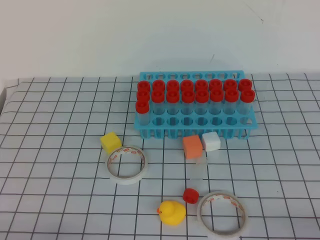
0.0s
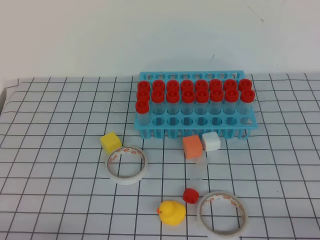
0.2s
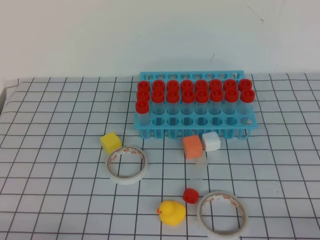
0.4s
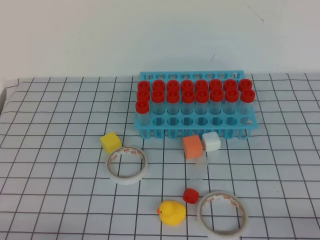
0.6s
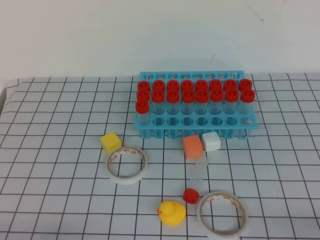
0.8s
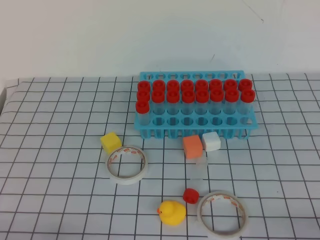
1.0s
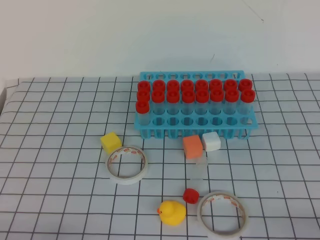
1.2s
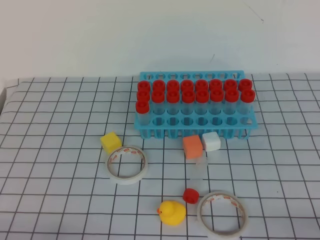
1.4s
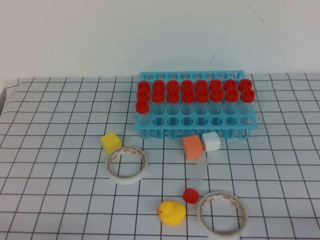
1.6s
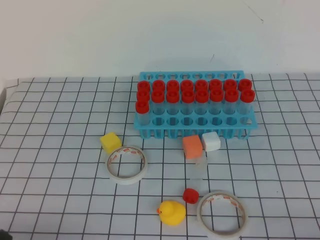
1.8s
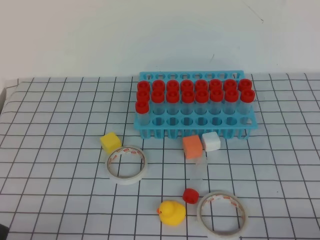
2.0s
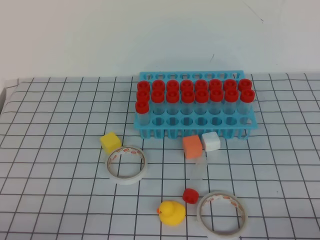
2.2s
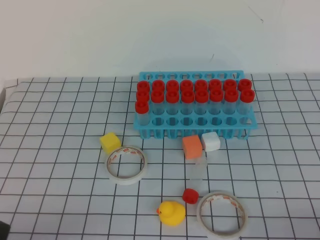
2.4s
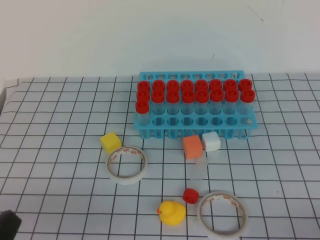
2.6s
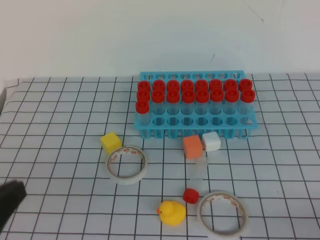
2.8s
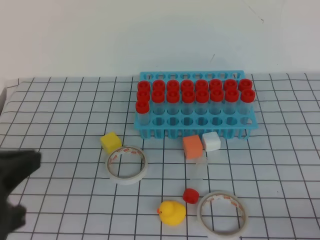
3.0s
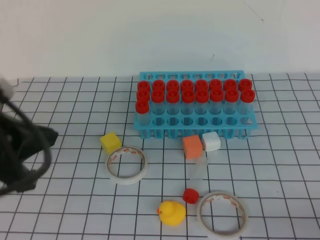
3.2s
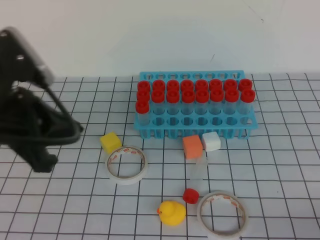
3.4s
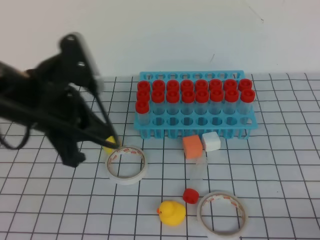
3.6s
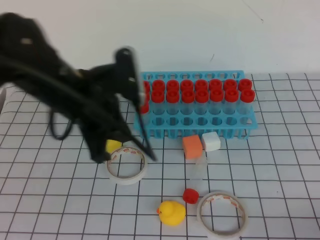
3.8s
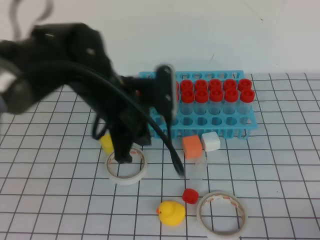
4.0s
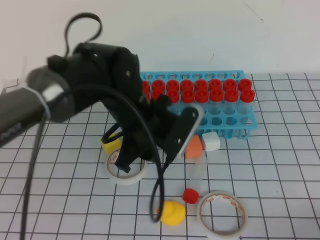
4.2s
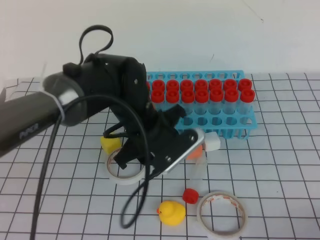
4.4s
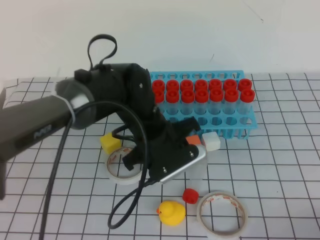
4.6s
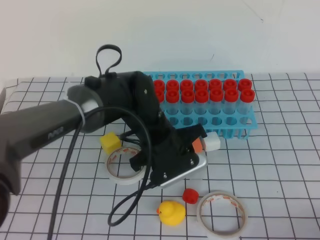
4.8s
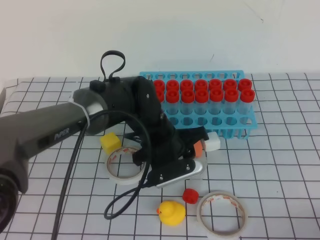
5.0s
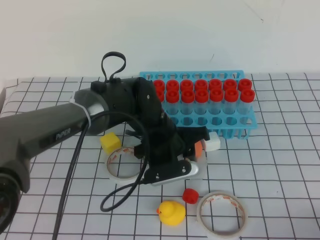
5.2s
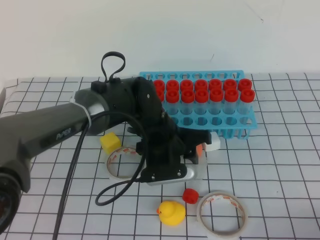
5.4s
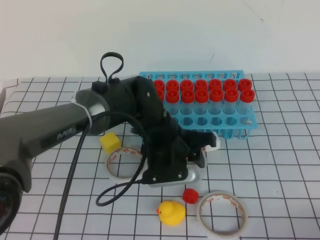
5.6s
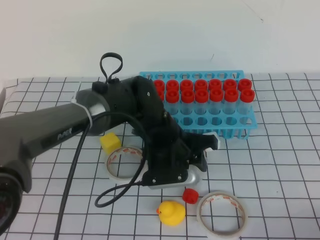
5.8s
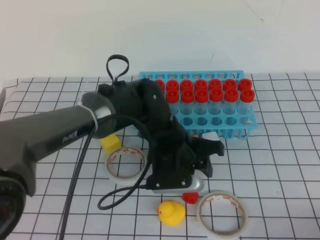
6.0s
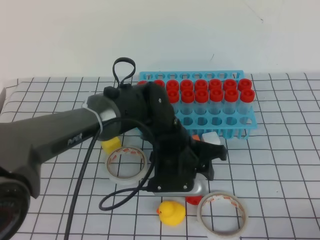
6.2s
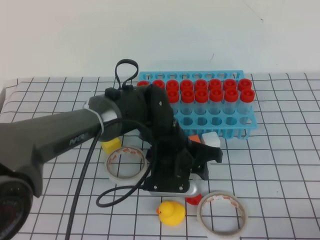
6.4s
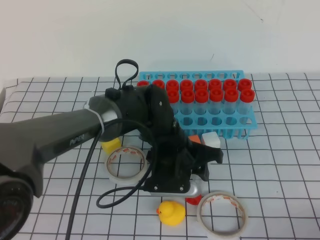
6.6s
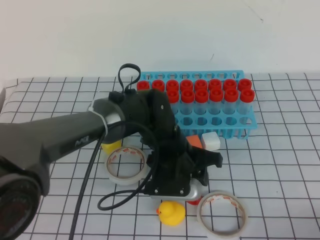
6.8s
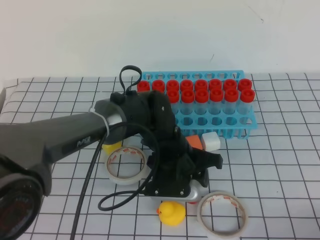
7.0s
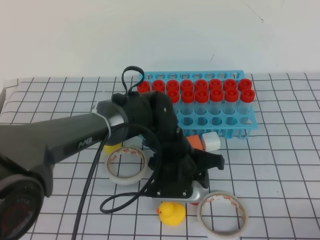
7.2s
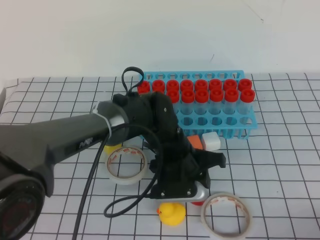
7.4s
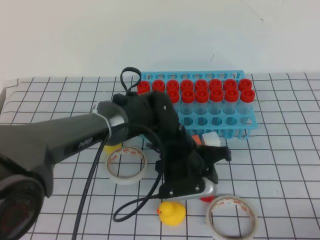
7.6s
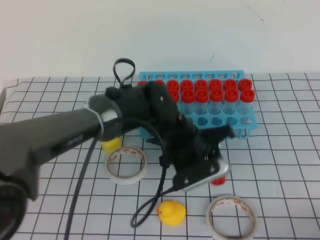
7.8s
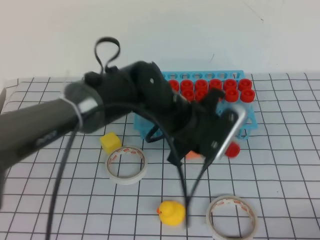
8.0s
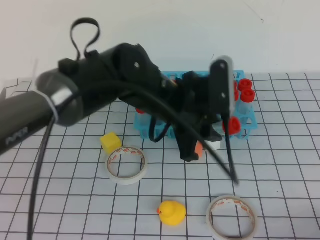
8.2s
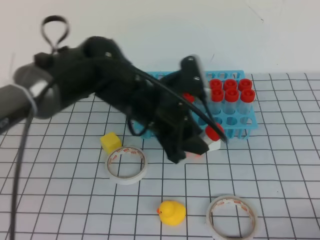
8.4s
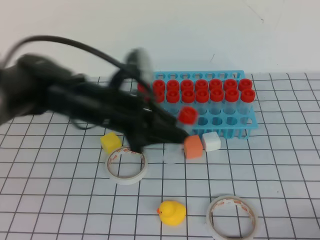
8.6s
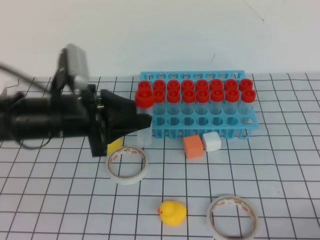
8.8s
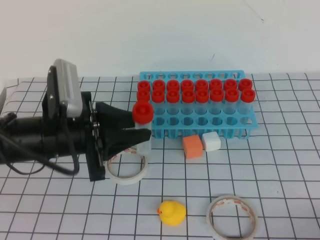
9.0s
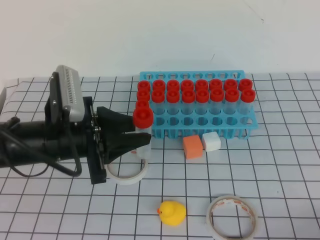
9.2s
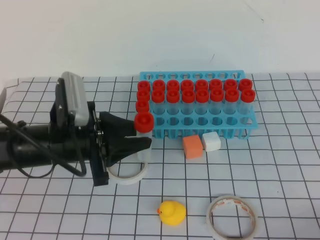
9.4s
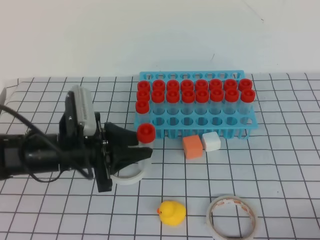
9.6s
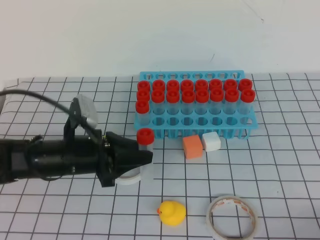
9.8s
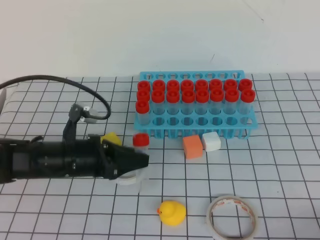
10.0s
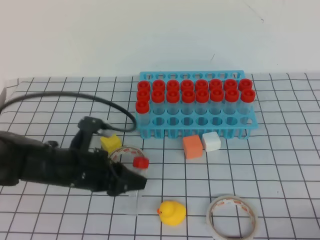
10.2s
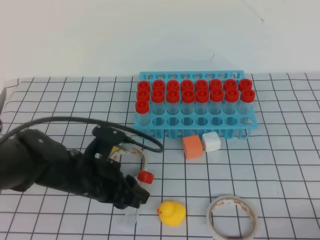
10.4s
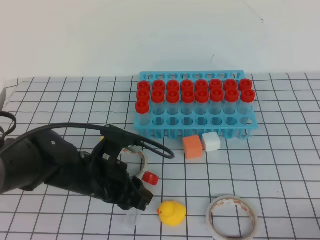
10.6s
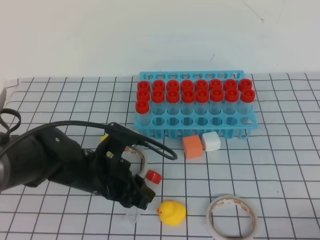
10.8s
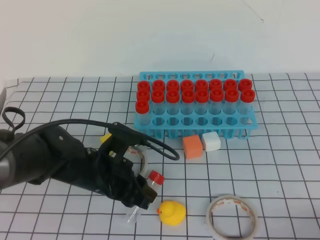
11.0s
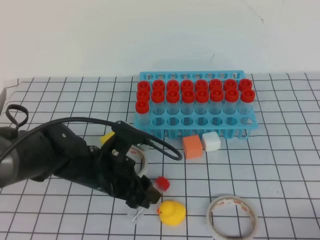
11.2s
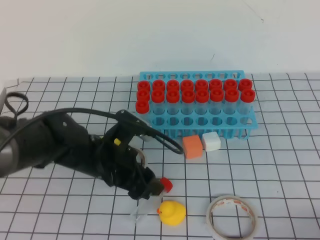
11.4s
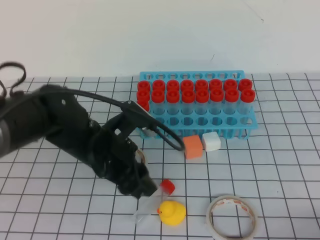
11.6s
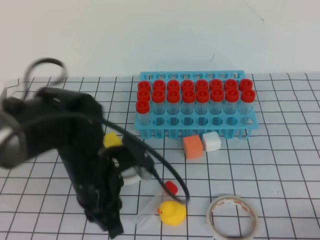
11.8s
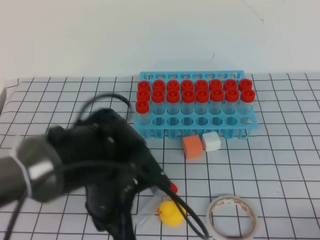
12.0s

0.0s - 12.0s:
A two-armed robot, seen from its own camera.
1.6s - 3.0s: The left gripper heads upward, covering some 15 cm.
3.0s - 4.4s: The left gripper shifts about 30 cm forward, to the right and downward, and opens its fingers.
4.4s - 6.0s: The left gripper goes roughly 5 cm downward.
6.0s - 7.6s: The grippers move only a little.
7.6s - 9.0s: The left gripper goes some 20 cm to the left and upward.
9.0s - 10.4s: The left gripper shifts roughly 10 cm downward.
10.4s - 12.0s: The left gripper heads to the right, covering roughly 5 cm, and closes up.

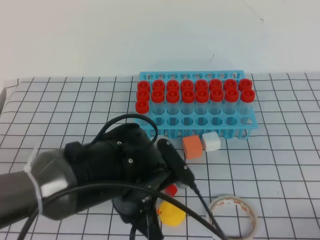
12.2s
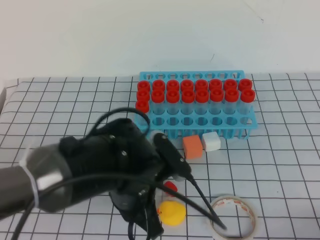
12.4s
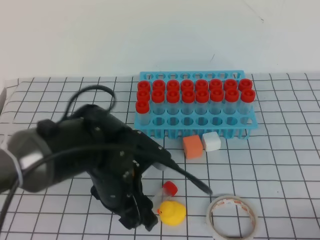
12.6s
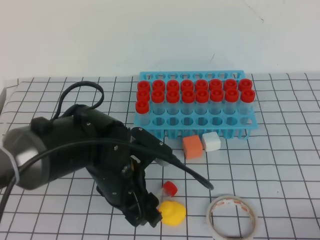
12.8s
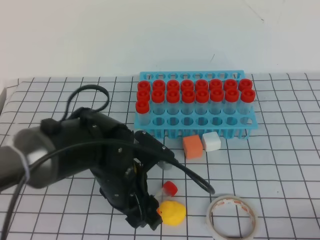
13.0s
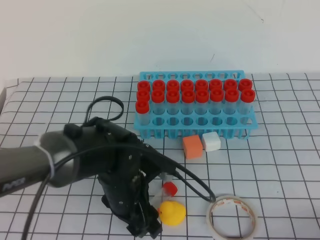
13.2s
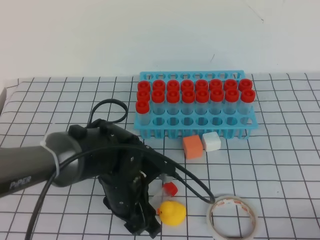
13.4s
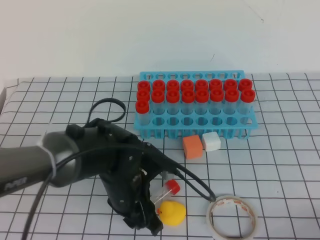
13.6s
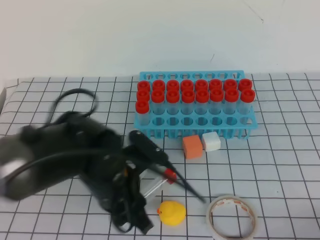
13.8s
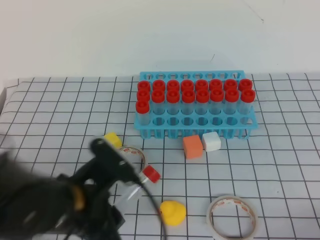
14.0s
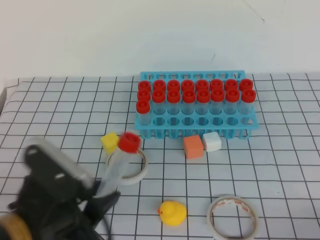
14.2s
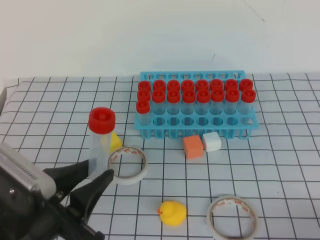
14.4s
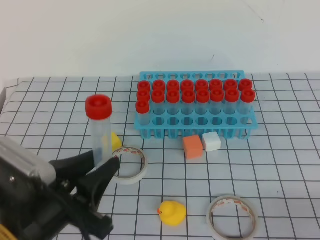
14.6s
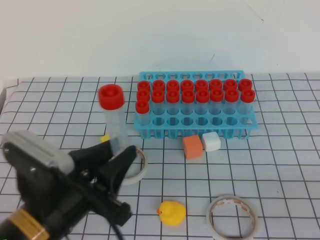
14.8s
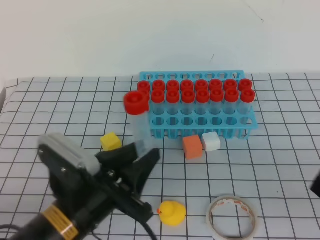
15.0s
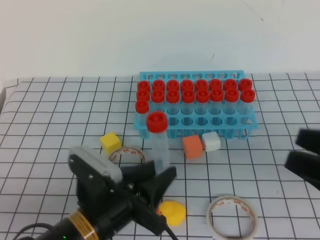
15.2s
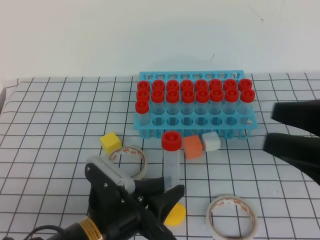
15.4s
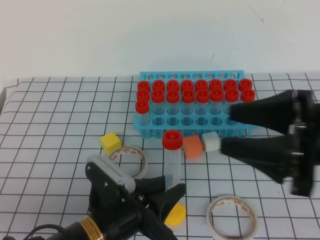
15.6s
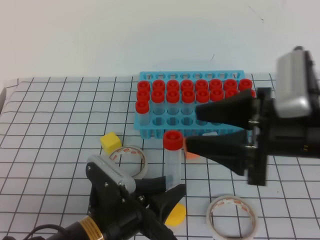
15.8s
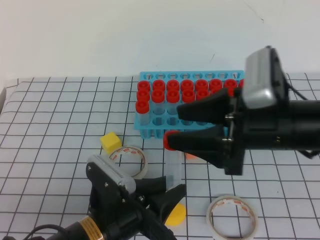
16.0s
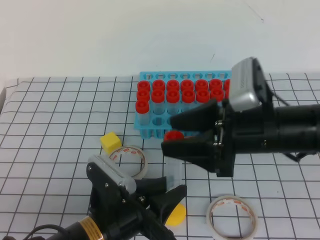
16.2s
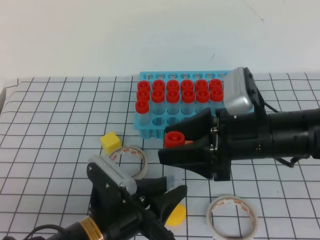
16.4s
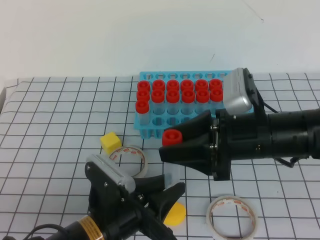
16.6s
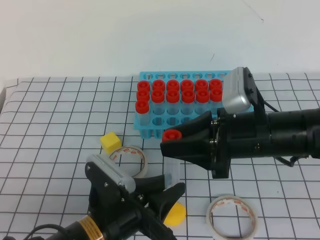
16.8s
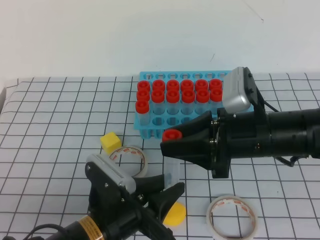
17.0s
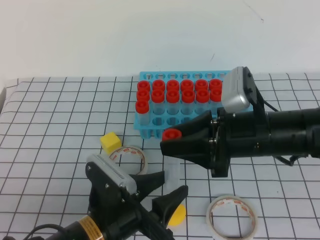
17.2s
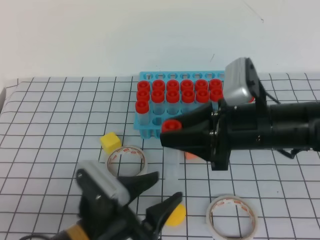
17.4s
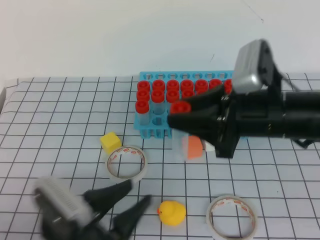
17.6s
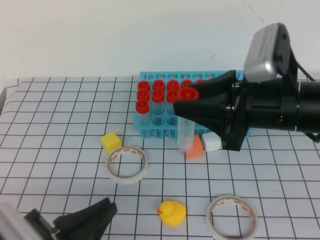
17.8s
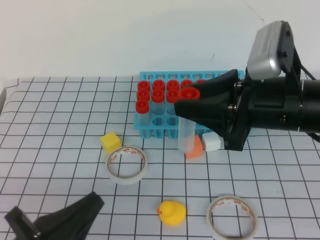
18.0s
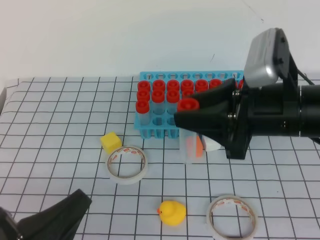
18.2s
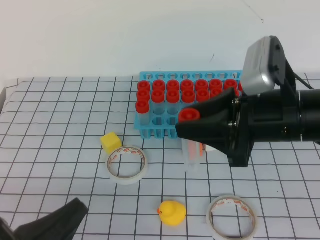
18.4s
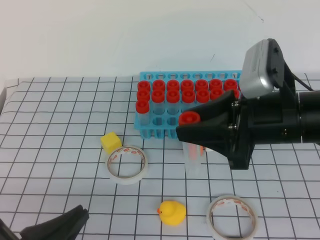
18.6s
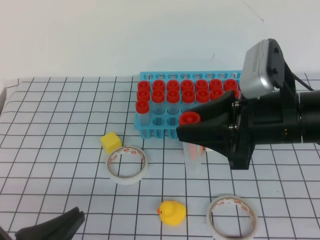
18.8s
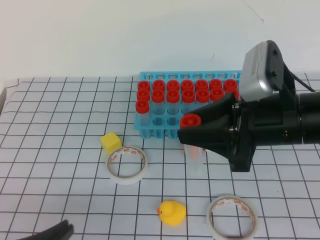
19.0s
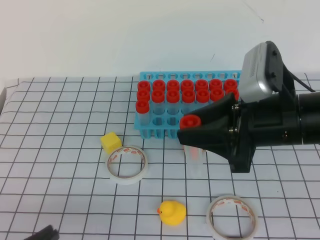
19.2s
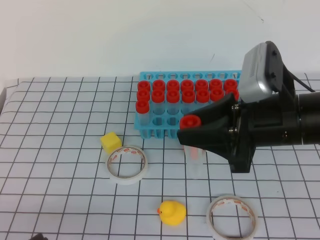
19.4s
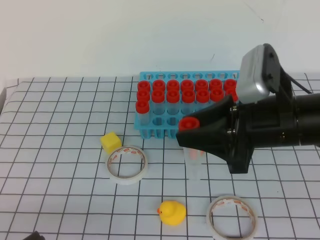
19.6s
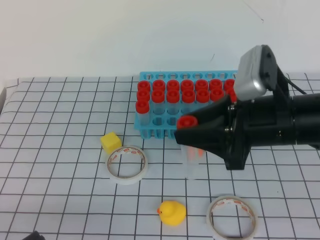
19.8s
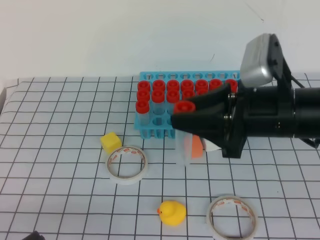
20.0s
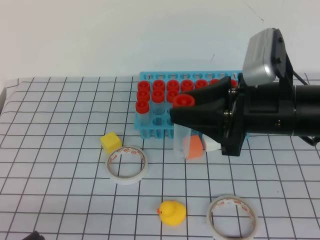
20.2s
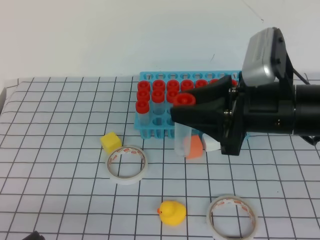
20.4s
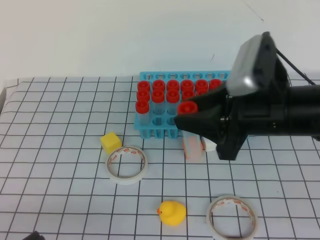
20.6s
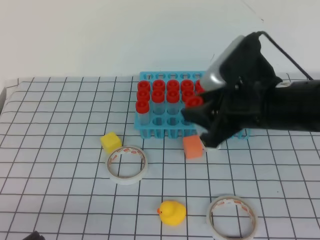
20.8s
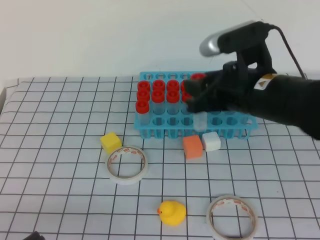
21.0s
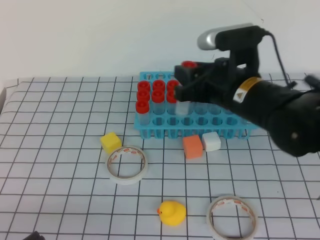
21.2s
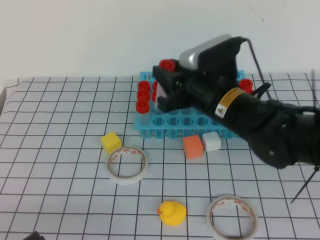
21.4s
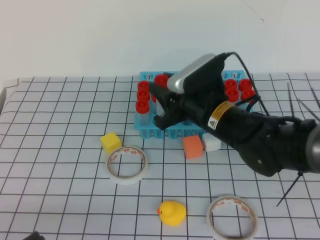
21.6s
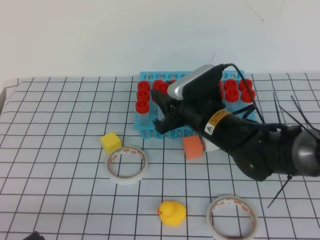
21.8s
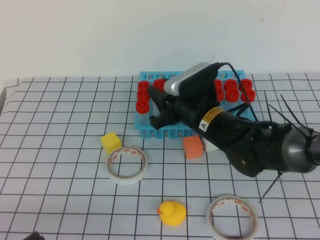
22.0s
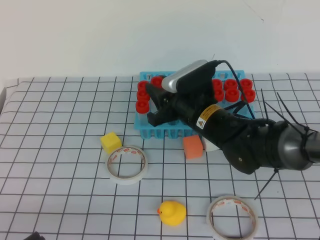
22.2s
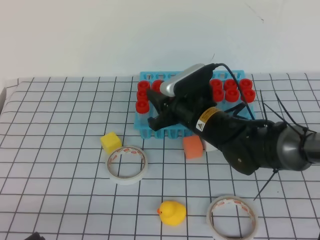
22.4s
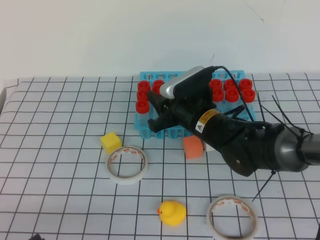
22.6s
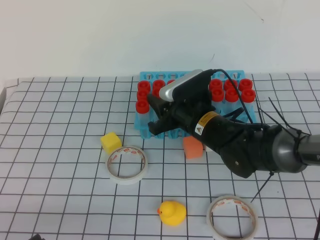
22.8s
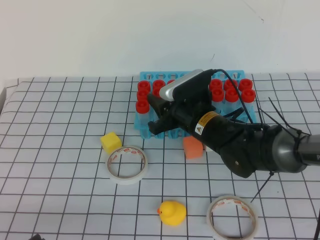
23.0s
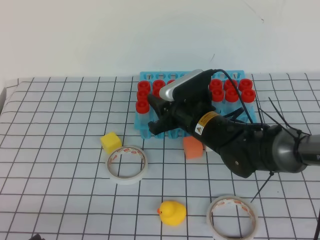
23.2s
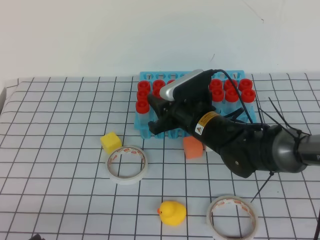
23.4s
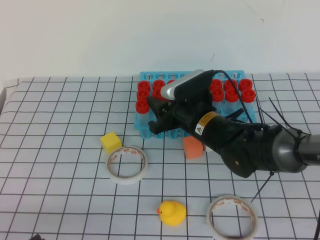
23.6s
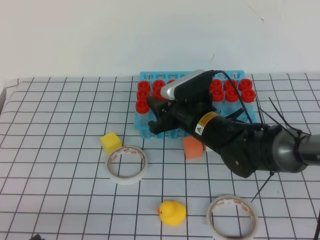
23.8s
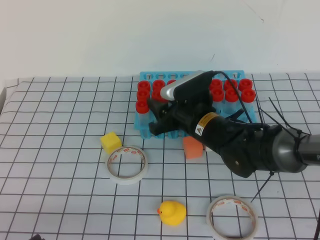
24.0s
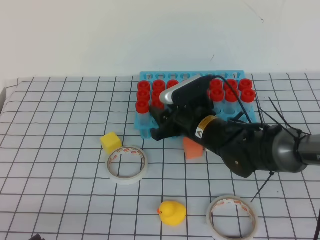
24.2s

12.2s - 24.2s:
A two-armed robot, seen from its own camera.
12.2s - 13.8s: The left gripper opens its fingers.
13.8s - 15.2s: The left gripper moves backward, some 5 cm. Meanwhile the right gripper travels upward, forward and to the left by approximately 15 cm, and opens its fingers.
15.2s - 16.6s: The right gripper shifts some 20 cm forward and to the left.
16.6s - 18.2s: The left gripper travels backward and to the left by roughly 15 cm, and closes up. Meanwhile the right gripper heads upward, covering some 5 cm.
18.2s - 19.8s: The left gripper moves backward, about 5 cm.
19.8s - 21.2s: The right gripper is displaced forward by about 5 cm.
21.2s - 22.6s: The right gripper heads downward, covering roughly 10 cm.
22.6s - 24.2s: The grippers make only small movements.
